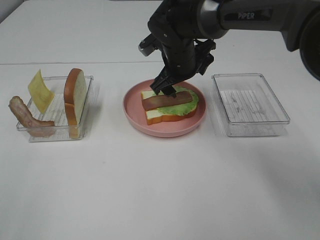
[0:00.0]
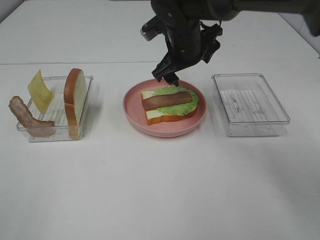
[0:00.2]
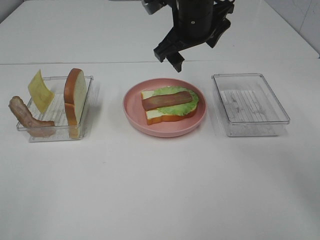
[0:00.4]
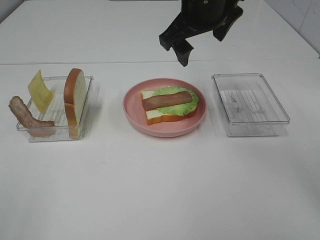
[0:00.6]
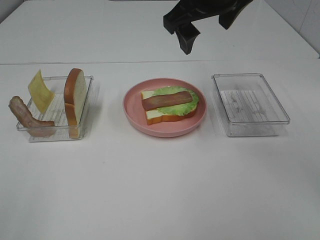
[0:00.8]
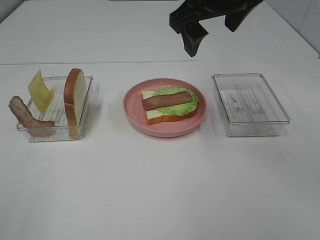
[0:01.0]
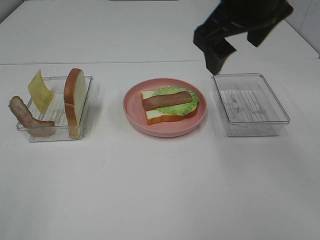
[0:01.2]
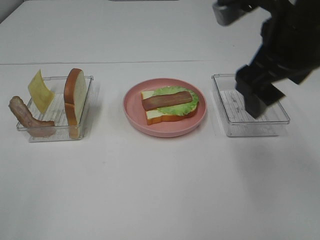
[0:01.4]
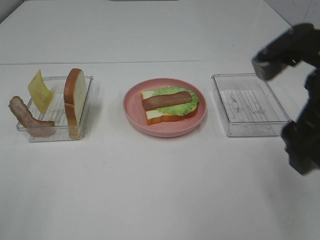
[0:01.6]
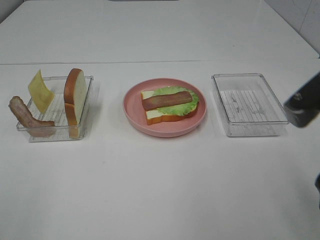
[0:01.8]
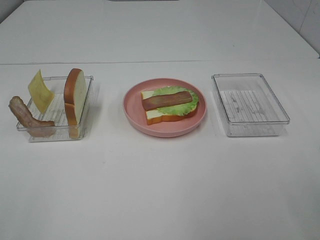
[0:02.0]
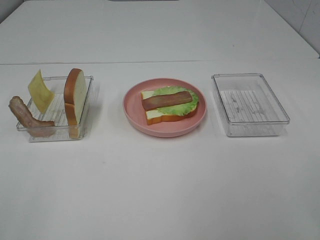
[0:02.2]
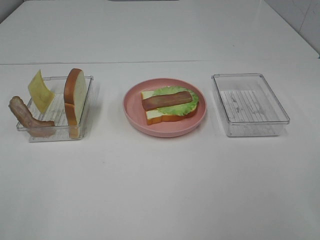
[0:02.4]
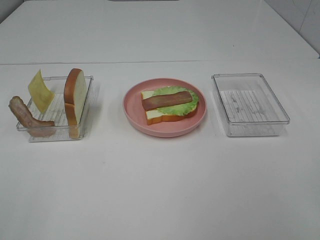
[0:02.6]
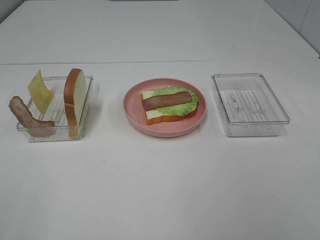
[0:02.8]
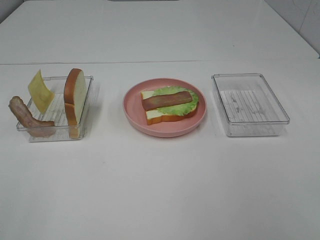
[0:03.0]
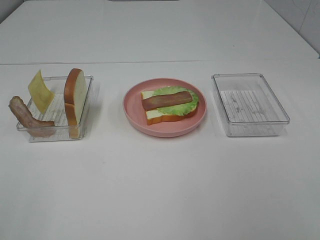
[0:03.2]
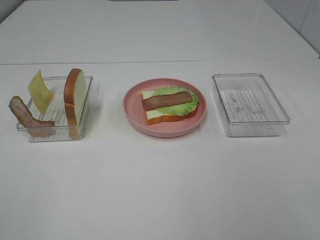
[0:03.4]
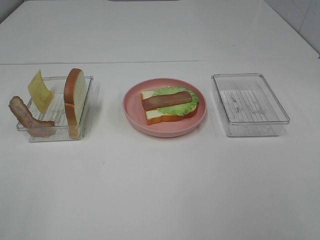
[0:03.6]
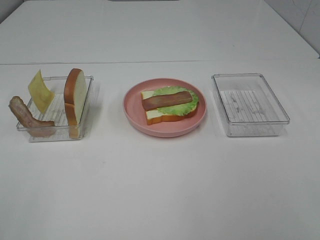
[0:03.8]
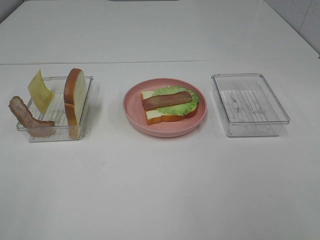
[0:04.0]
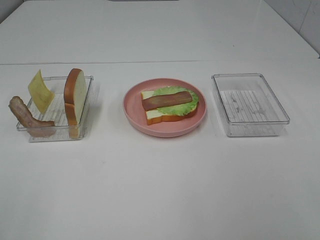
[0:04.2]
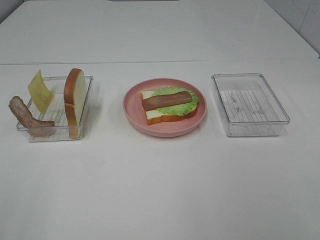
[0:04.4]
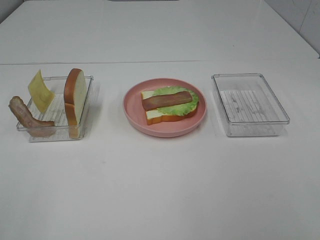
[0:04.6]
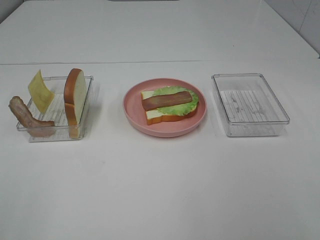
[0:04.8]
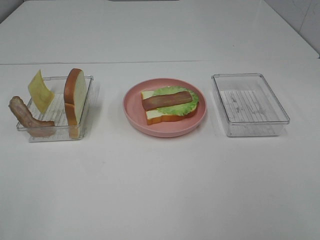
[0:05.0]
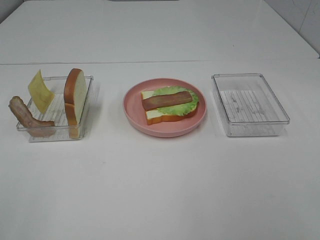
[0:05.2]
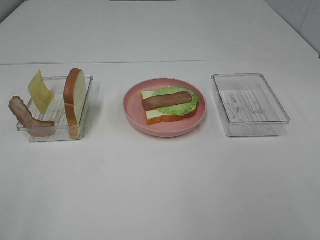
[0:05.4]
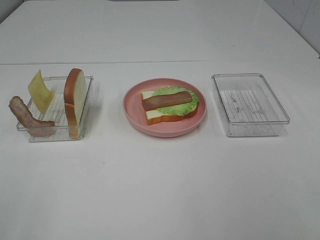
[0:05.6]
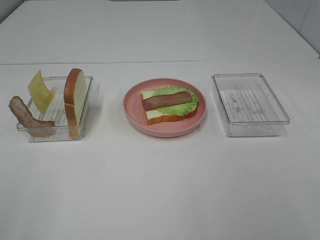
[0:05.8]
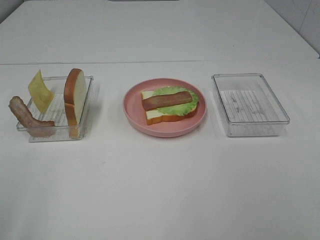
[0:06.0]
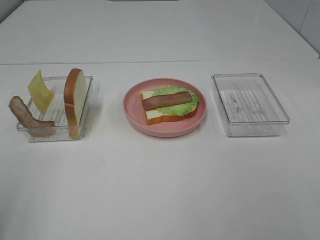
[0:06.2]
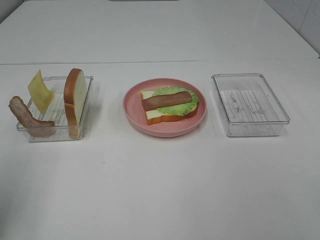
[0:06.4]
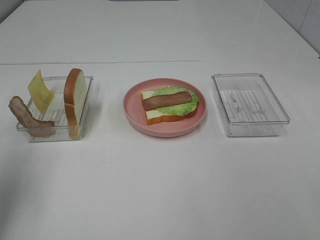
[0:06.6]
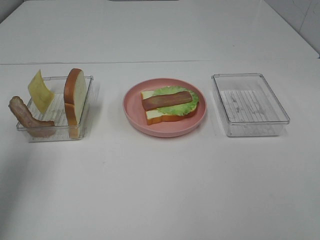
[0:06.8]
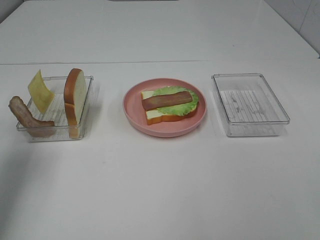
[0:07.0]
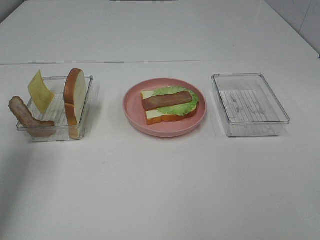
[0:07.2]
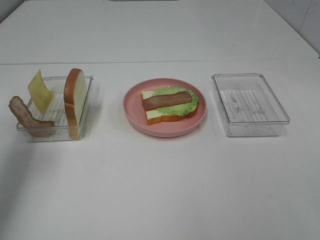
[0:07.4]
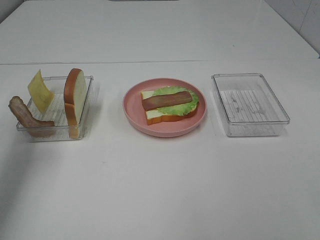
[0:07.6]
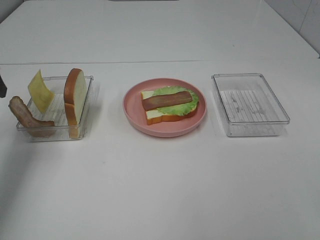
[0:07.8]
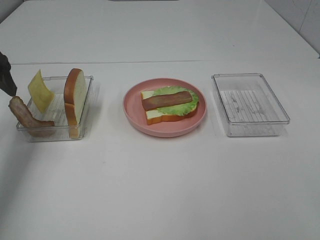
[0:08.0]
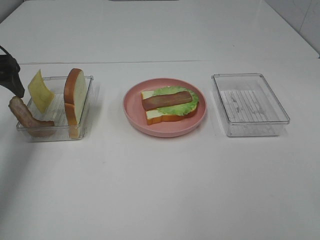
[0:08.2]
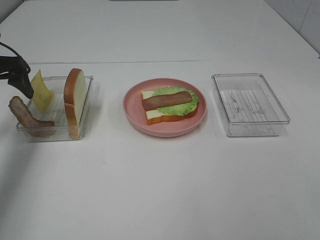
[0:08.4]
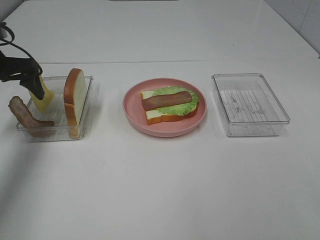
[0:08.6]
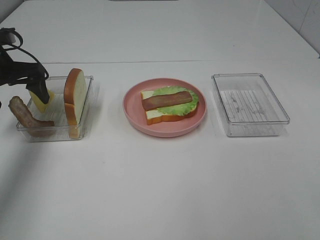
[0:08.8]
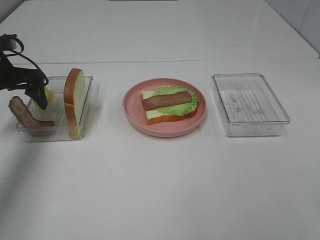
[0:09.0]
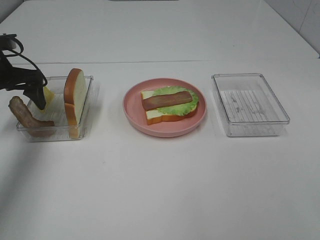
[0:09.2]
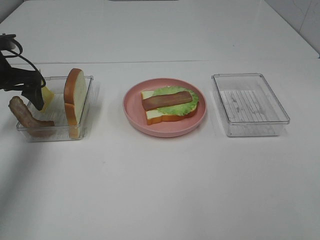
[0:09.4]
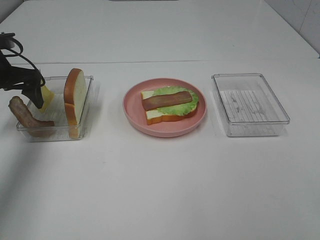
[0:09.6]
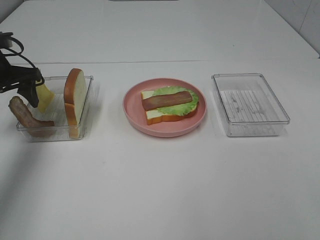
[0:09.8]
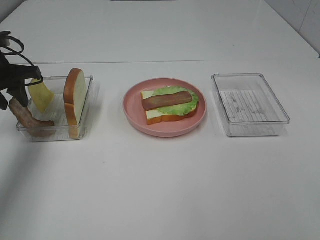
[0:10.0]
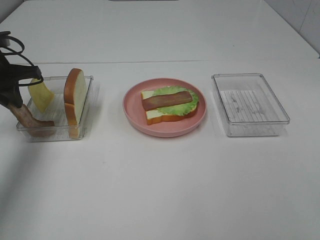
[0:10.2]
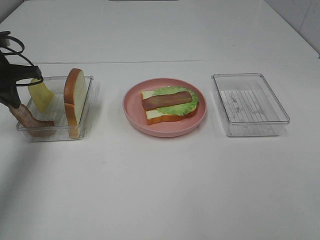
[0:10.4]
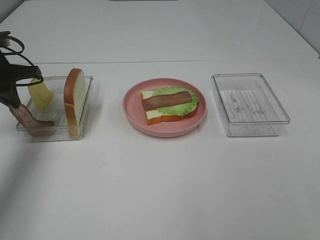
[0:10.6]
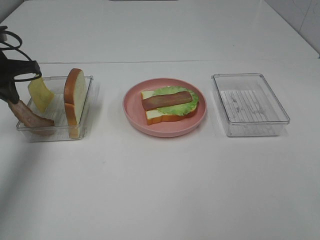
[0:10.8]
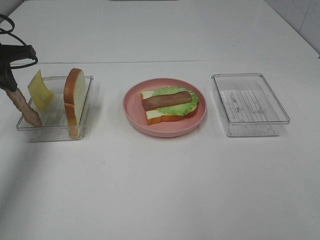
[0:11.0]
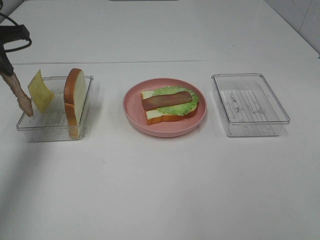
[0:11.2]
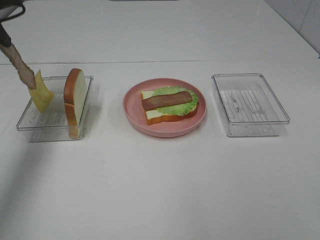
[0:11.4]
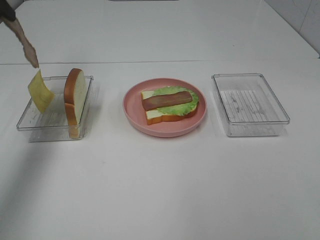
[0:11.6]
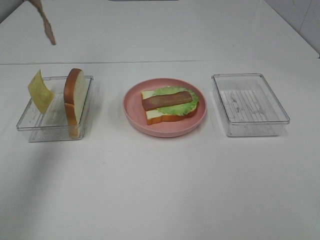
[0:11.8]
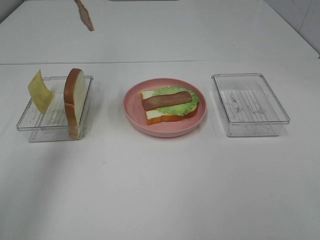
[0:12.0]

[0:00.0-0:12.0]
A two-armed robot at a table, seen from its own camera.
Task of the whole recording: Make sandwiches.
Step, 0:00.0 to 0:11.0: Left hand:grab the bacon.
0:00.0 to 0:01.6: The right gripper moves backward, to the right and upward, some 30 cm.
0:01.6 to 0:03.0: The right gripper moves backward and to the right, roughly 20 cm.
0:06.0 to 0:07.6: The left gripper moves forward, about 25 cm.
0:07.6 to 0:09.0: The left gripper is displaced forward and downward by approximately 15 cm.
0:09.0 to 0:10.4: The left gripper closes up.
0:10.4 to 0:12.0: The left gripper is displaced upward and to the right by some 20 cm.

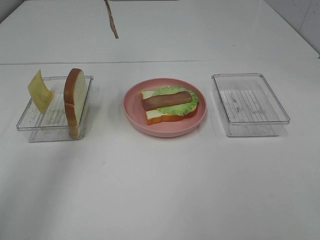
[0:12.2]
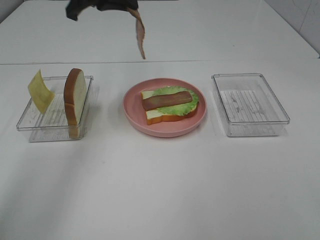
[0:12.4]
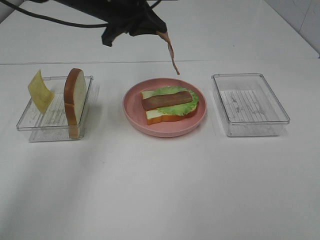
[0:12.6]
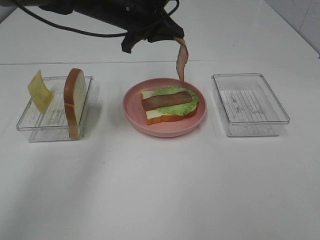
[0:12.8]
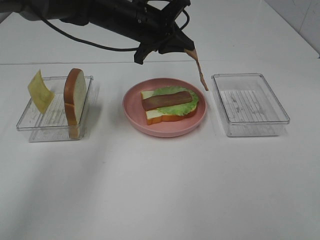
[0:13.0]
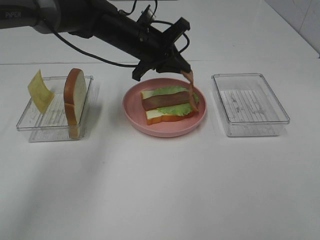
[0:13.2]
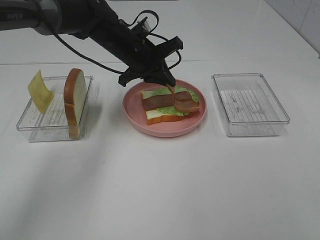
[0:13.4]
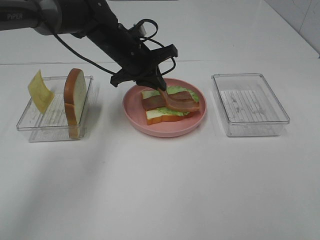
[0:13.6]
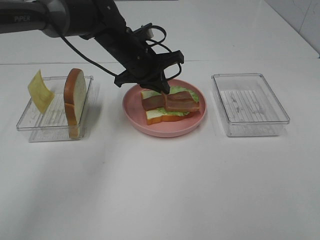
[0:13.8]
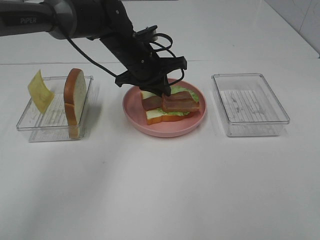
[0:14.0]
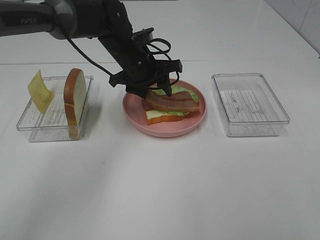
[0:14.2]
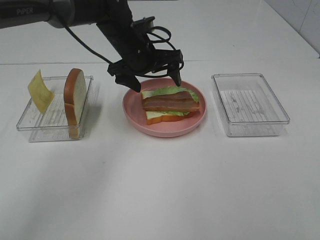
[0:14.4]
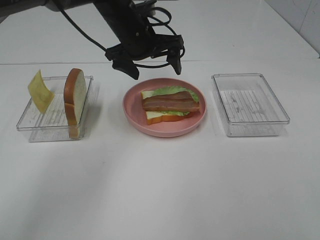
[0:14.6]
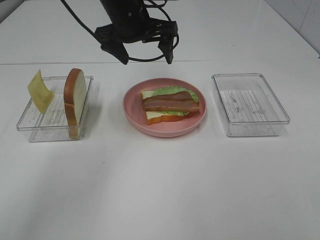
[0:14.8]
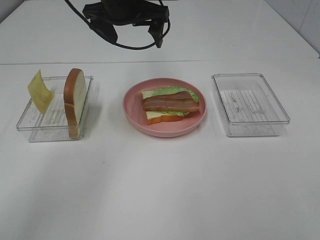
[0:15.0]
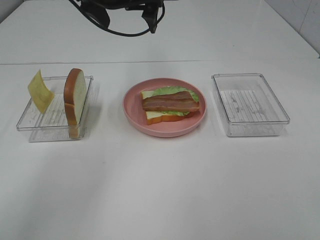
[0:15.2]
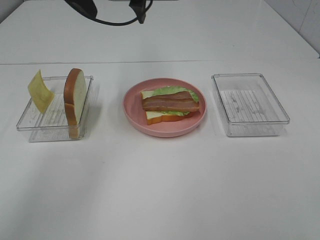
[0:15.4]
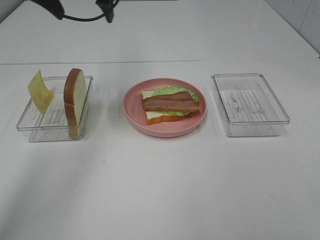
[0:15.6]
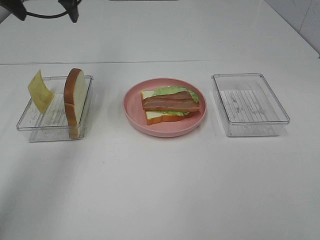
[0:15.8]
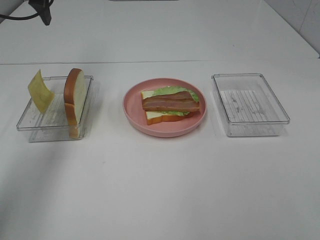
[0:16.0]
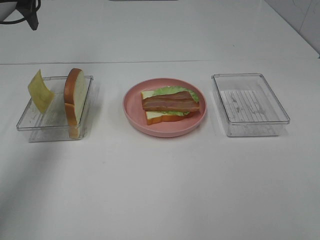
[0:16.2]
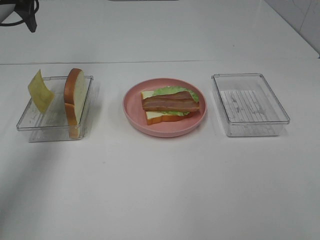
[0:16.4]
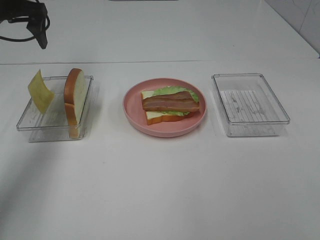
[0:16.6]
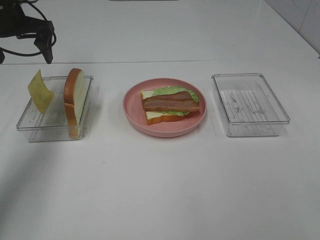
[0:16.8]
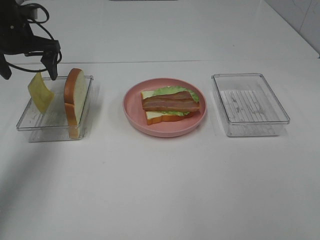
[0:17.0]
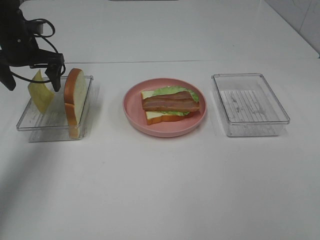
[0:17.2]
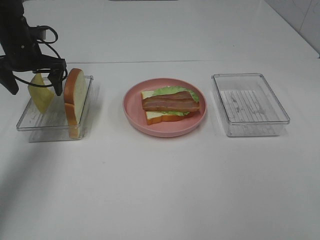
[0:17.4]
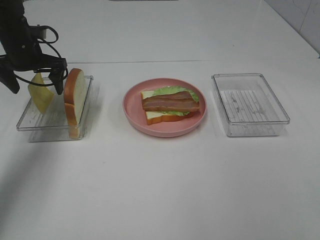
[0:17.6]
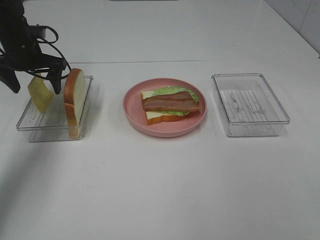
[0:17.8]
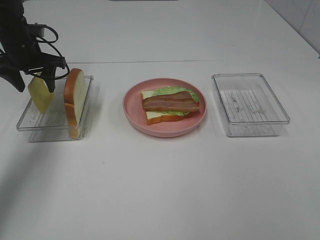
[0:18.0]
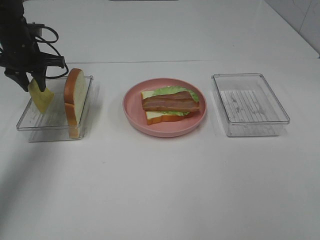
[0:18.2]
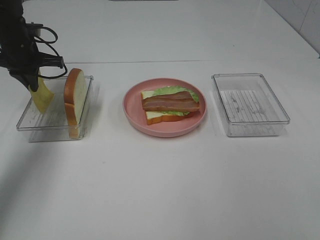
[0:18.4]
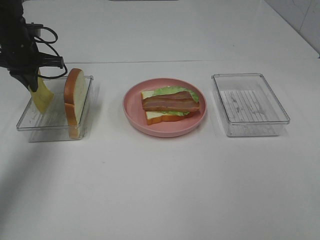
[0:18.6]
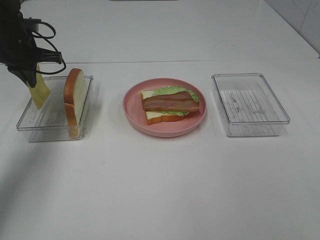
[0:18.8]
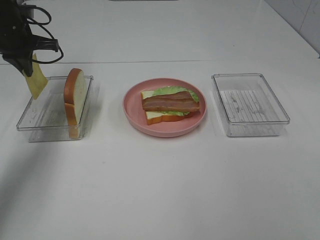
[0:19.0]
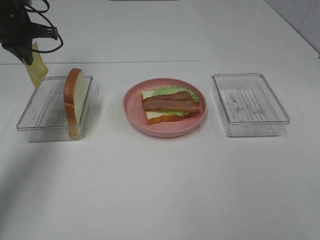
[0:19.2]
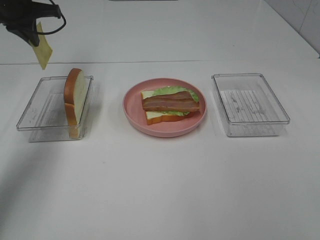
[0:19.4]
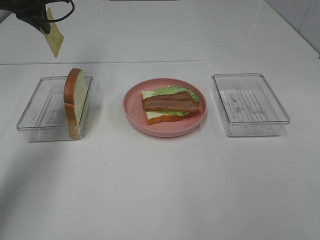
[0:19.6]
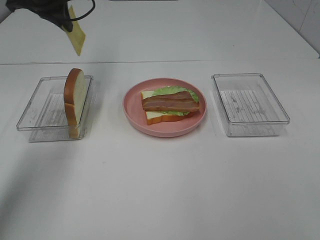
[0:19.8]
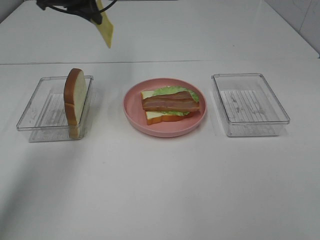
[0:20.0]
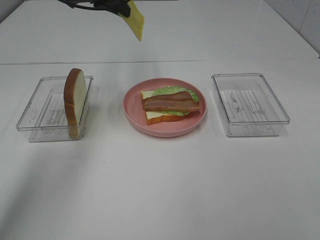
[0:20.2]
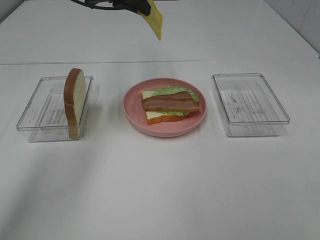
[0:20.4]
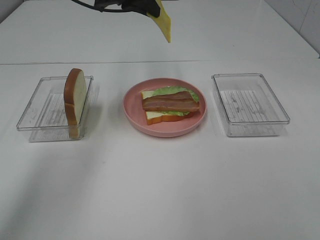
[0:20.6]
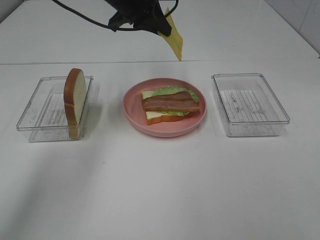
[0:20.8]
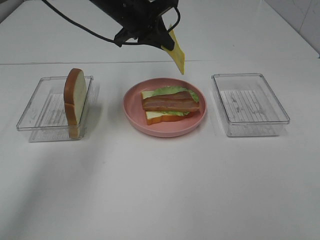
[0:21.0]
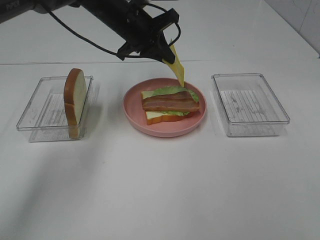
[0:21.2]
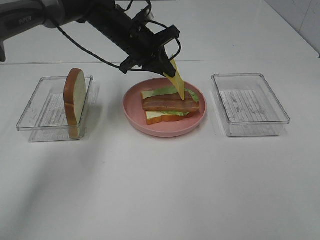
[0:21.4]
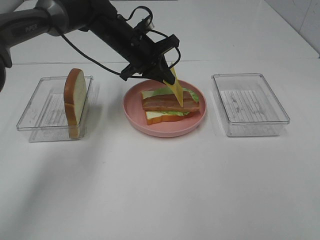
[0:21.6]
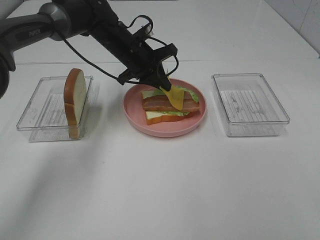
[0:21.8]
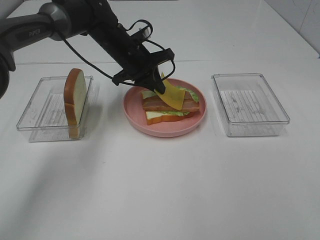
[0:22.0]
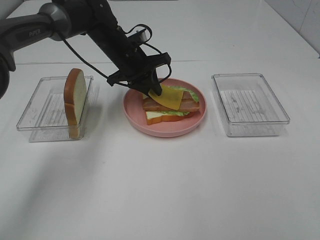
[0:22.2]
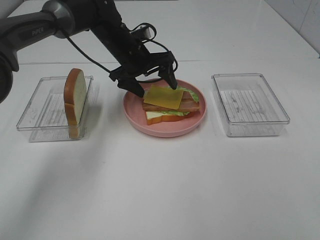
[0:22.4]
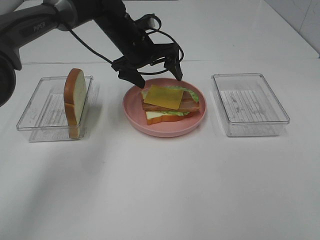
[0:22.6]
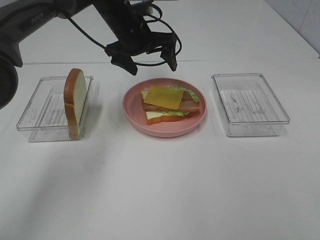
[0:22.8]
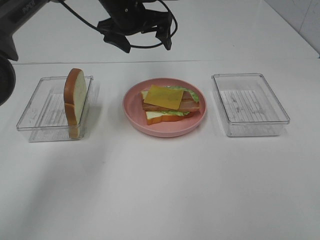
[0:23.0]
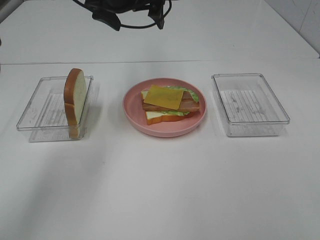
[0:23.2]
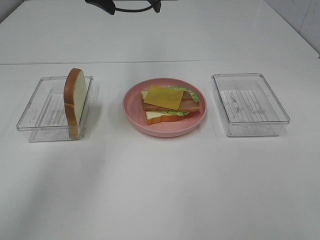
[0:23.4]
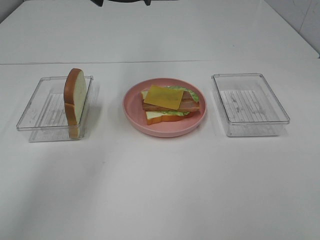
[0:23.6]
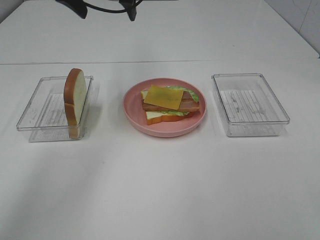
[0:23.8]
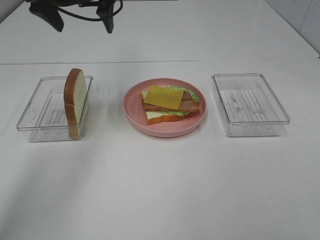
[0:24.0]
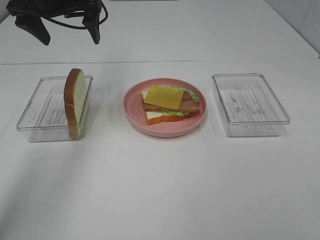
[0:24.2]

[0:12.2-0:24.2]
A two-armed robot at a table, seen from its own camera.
Task of the whole recording: Make sandwiches.
Step, 0:12.2 to 0:14.4: Left hand:place bacon on bacon.
Step, 0:14.6 to 0:18.8: Left hand:grab the cheese slice.
Step, 0:19.0 to 0:22.6: Left hand:place the cheese slice on top of the bacon.
0:12.2 to 0:13.8: The left gripper is displaced downward and to the right by approximately 20 cm.
0:13.8 to 0:15.2: The left gripper shifts some 15 cm upward, and opens.
0:15.2 to 0:16.6: The left gripper moves to the left, about 20 cm.
0:16.6 to 0:18.2: The left gripper heads downward, covering roughly 10 cm, and closes.
0:18.2 to 0:19.8: The left gripper shifts about 15 cm upward and to the right.
0:19.8 to 0:21.2: The left gripper goes approximately 15 cm to the right and downward.
0:21.2 to 0:22.6: The left gripper opens its fingers.
0:22.6 to 0:24.2: The left gripper goes some 15 cm to the left and upward.
